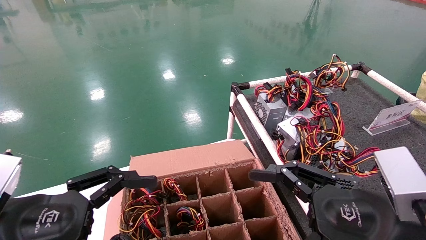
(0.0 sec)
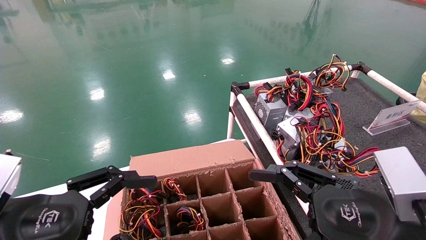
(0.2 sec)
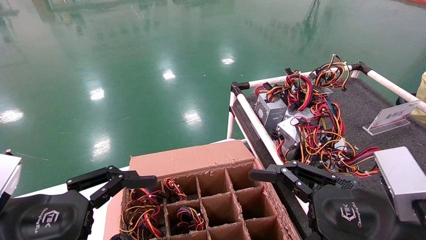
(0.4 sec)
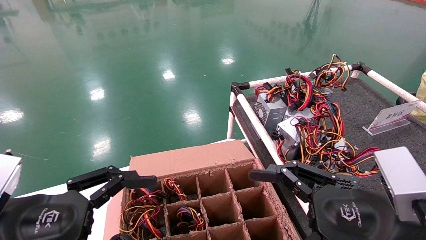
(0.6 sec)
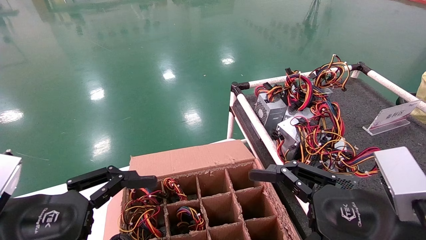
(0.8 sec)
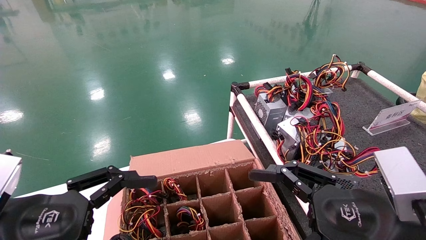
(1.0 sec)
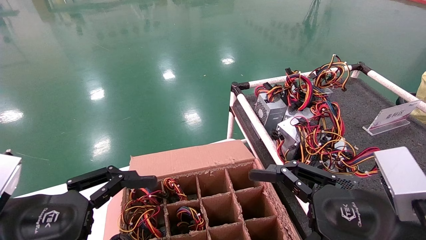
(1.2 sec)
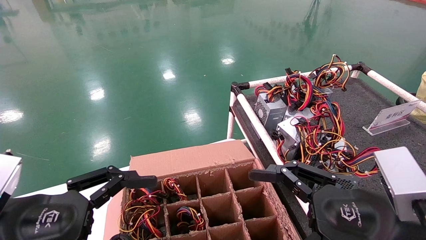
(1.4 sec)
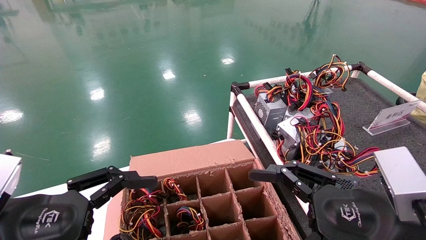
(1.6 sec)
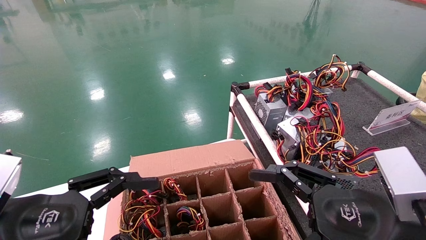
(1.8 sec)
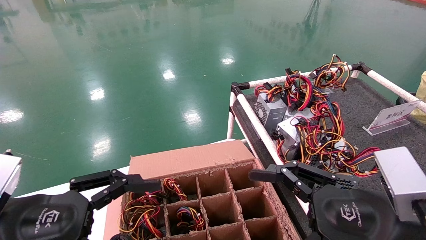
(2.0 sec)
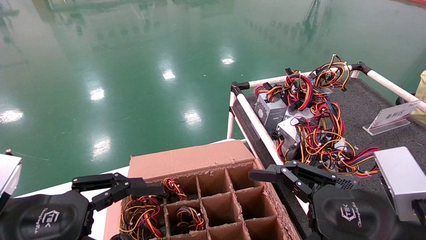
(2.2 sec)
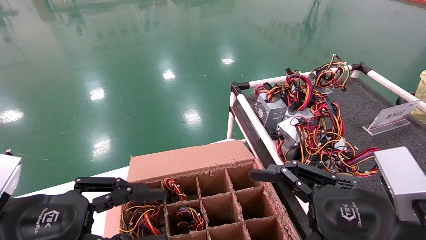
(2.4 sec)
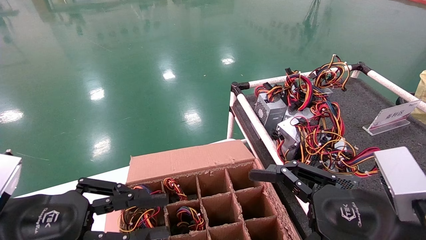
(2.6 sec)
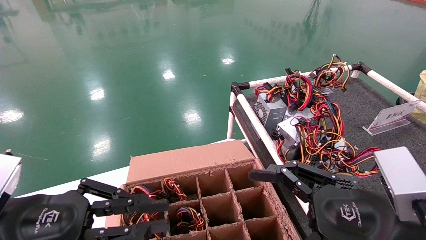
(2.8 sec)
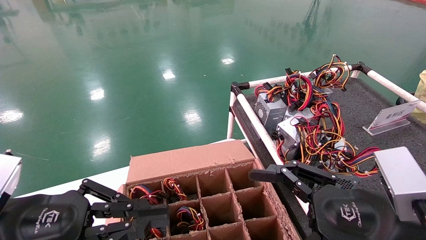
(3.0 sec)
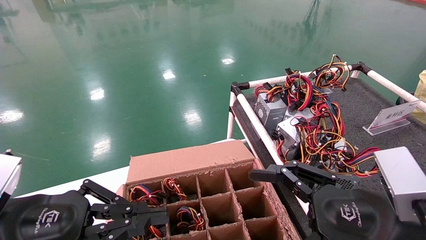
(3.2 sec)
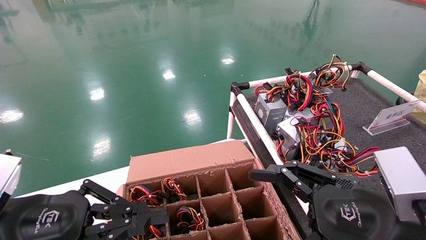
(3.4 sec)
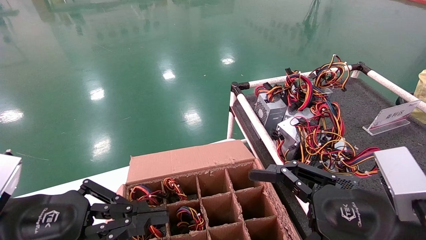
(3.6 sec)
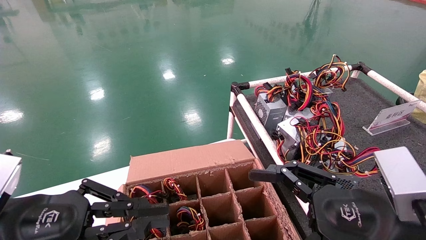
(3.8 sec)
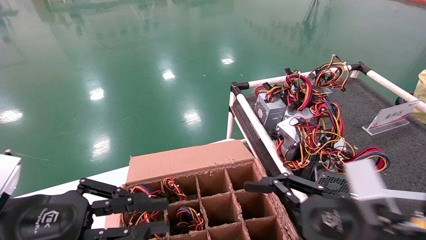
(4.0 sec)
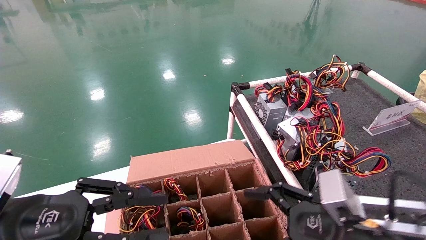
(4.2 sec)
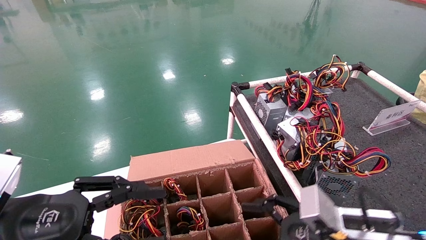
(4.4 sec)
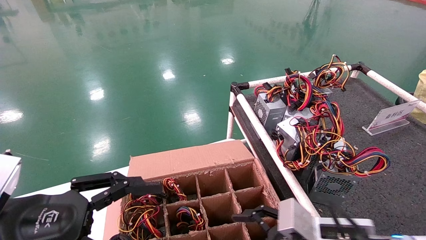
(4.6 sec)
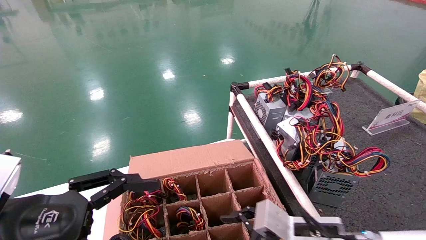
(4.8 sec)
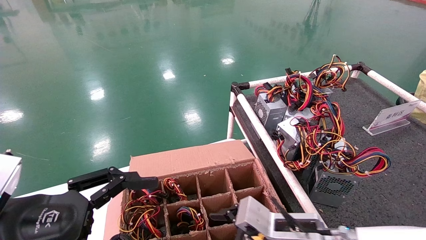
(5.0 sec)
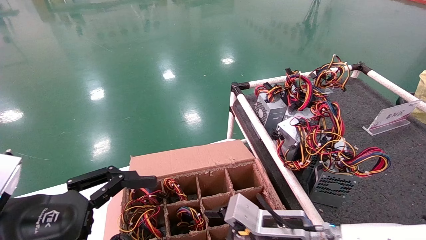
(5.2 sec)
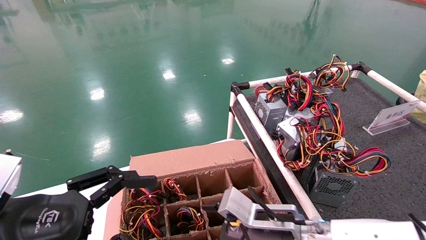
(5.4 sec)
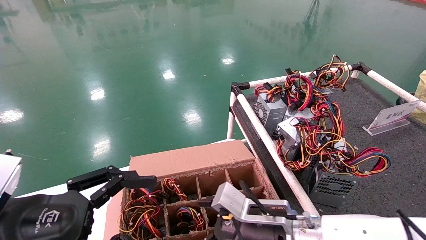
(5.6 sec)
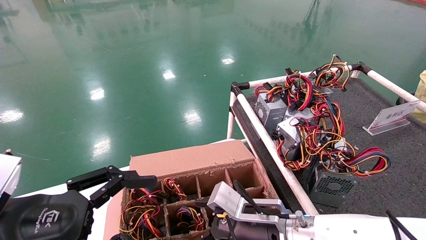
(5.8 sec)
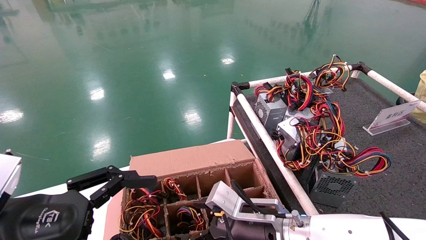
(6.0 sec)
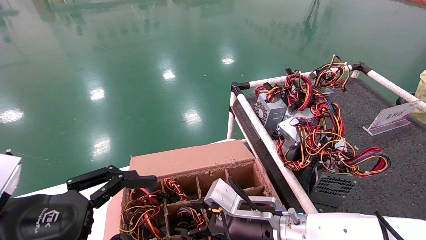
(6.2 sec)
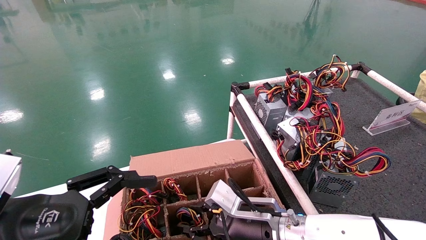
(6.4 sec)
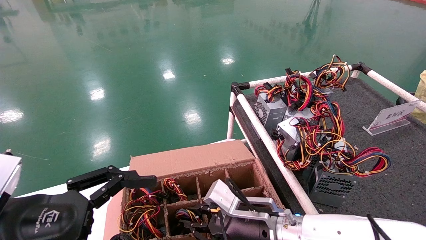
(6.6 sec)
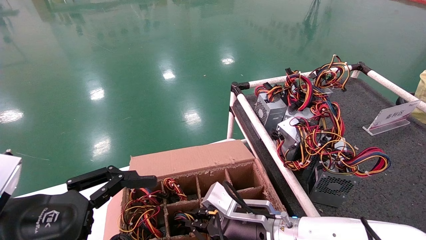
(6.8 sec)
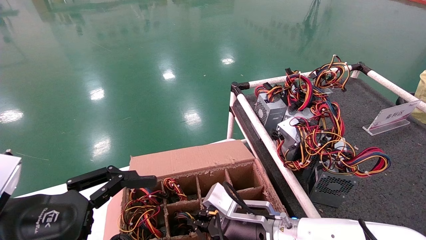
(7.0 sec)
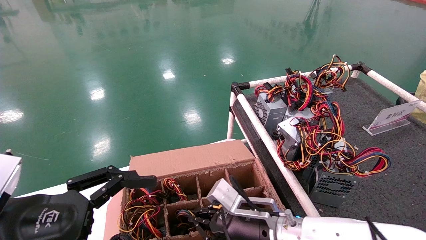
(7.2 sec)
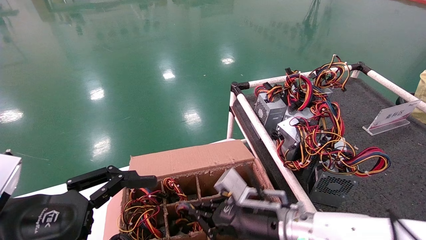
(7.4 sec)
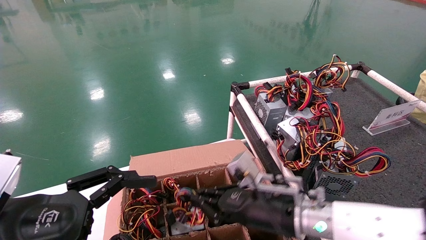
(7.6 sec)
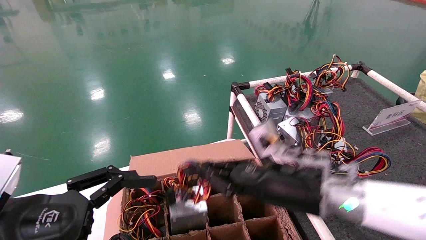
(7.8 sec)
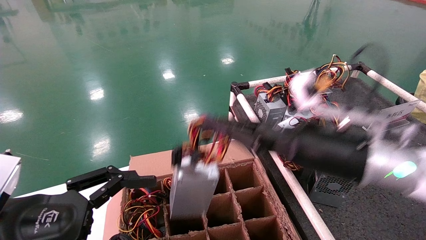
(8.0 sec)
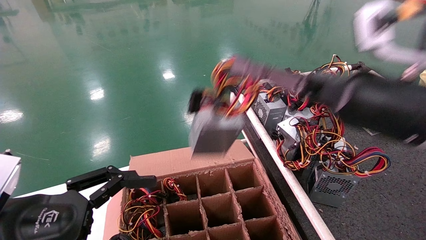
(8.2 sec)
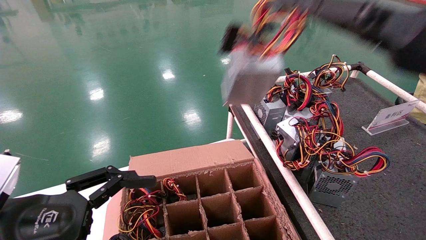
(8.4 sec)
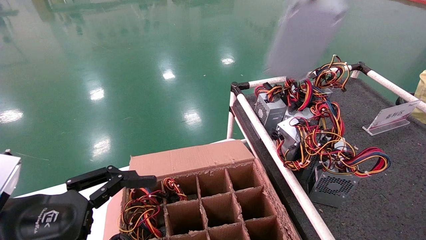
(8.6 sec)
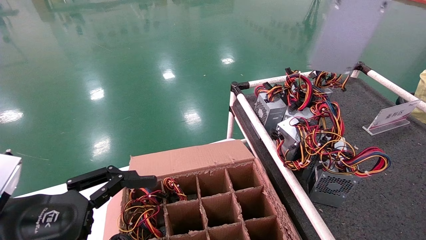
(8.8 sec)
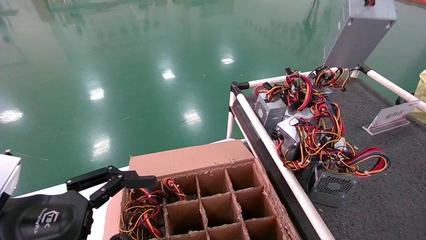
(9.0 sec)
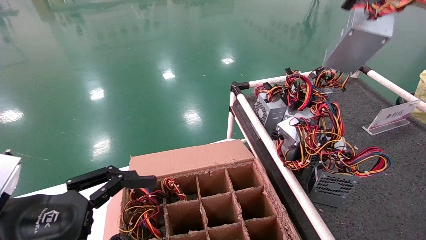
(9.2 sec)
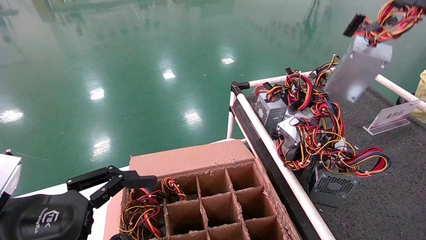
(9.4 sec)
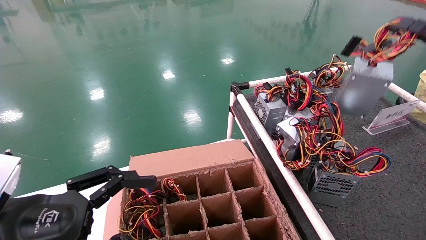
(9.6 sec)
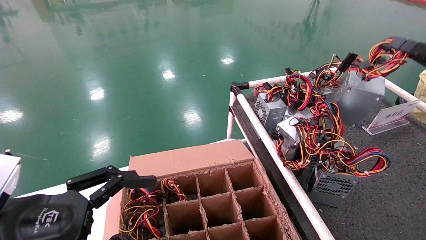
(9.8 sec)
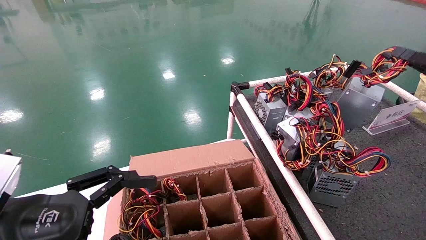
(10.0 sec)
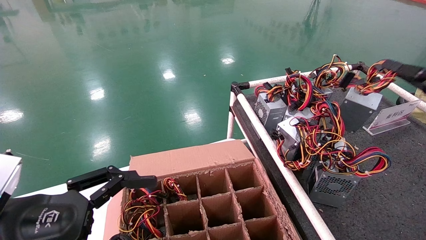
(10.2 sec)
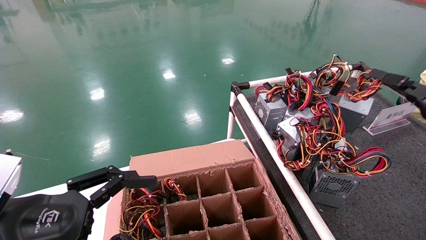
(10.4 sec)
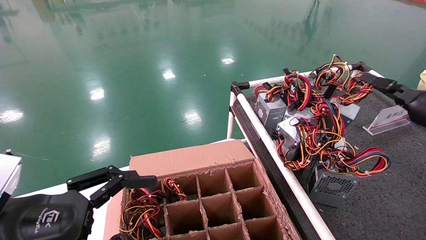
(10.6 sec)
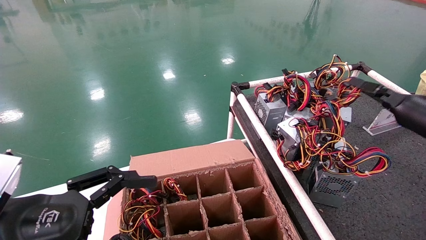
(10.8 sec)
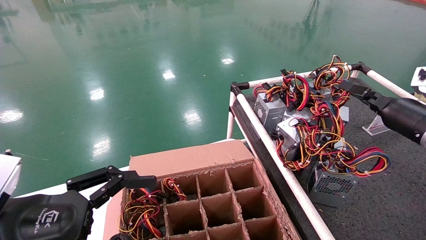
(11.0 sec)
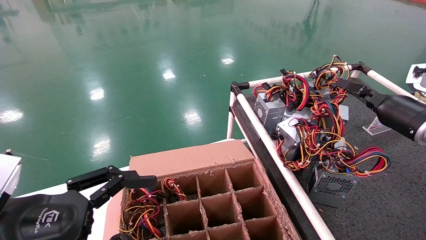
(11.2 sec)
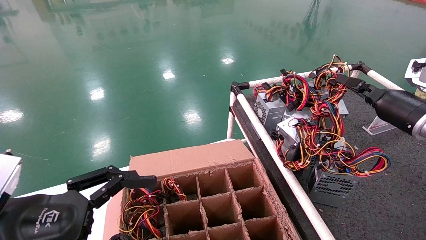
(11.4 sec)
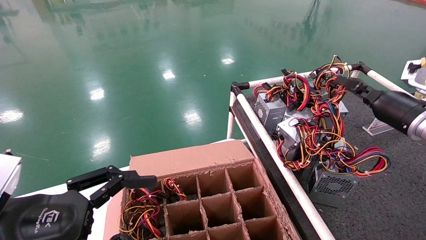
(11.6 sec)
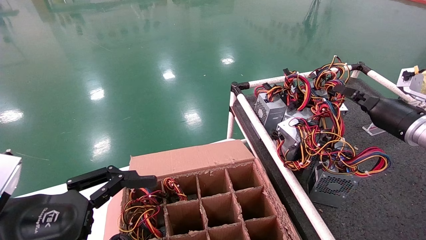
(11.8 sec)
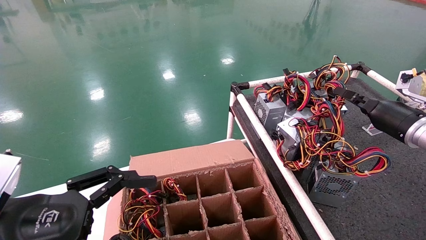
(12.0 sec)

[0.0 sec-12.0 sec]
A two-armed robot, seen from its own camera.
Step, 2.4 sec to 6.8 sec: Grab and lift the power supply from the large box.
0.0 sec to 1.6 sec: The two grippers keep their place.
1.6 sec to 3.0 sec: The left gripper closes.
3.0 sec to 4.4 sec: The right gripper heads downward and forward, covering about 10 cm.
4.4 sec to 6.0 sec: The right gripper moves to the left and forward, about 15 cm, while the left gripper opens up.
6.0 sec to 7.6 sec: The right gripper shifts some 5 cm upward, and closes up.
7.6 sec to 9.0 sec: The right gripper is displaced to the right and upward by approximately 40 cm.
9.0 sec to 10.4 sec: The right gripper goes approximately 20 cm downward and forward.
10.4 sec to 12.0 sec: The right gripper goes roughly 10 cm forward and to the left.

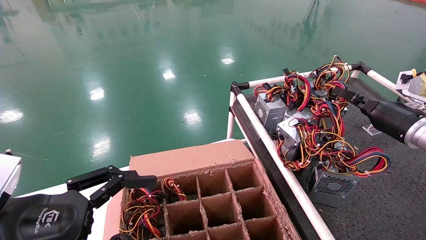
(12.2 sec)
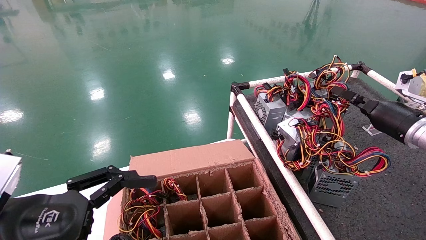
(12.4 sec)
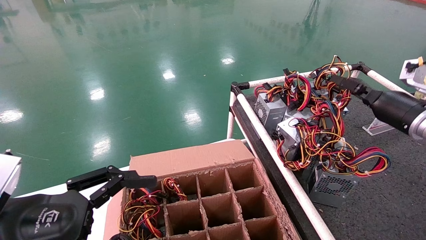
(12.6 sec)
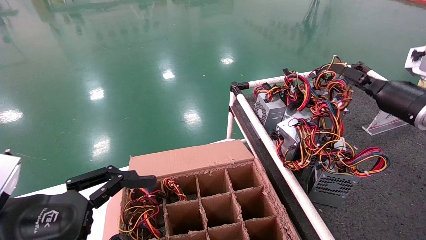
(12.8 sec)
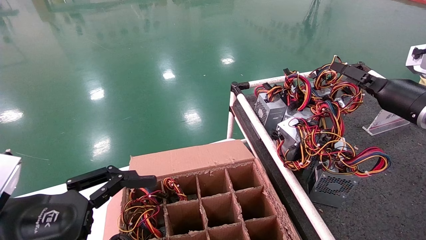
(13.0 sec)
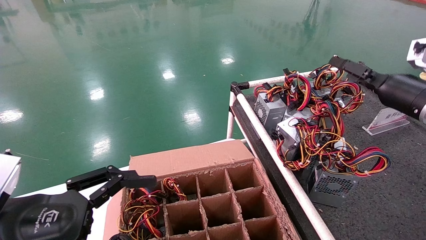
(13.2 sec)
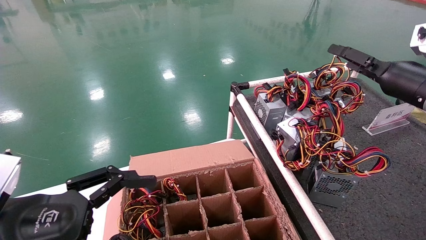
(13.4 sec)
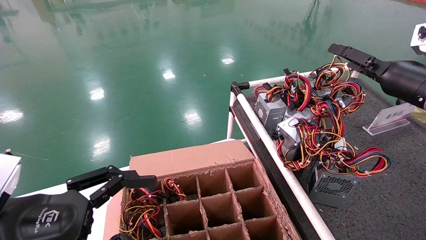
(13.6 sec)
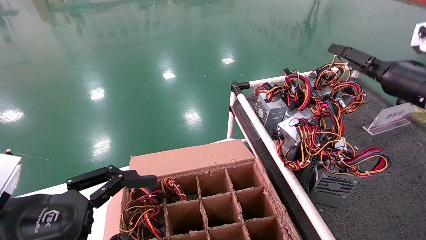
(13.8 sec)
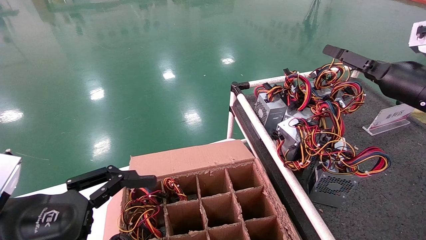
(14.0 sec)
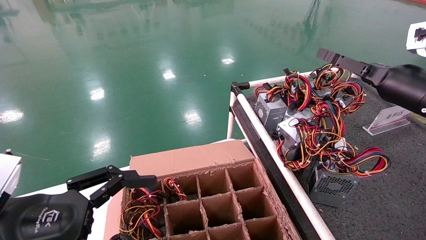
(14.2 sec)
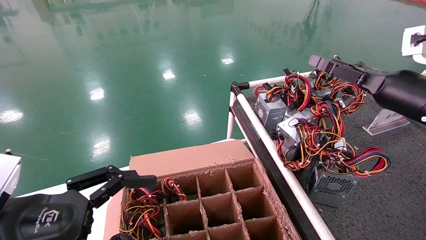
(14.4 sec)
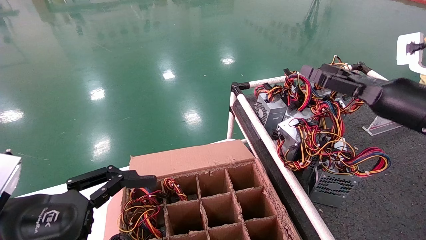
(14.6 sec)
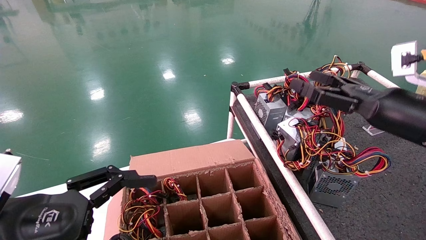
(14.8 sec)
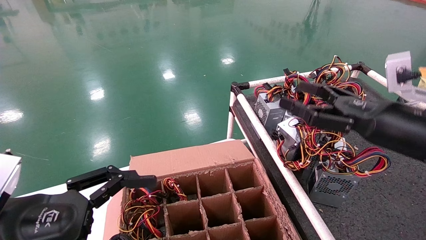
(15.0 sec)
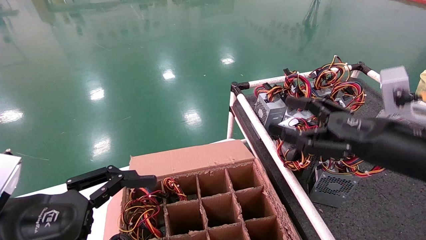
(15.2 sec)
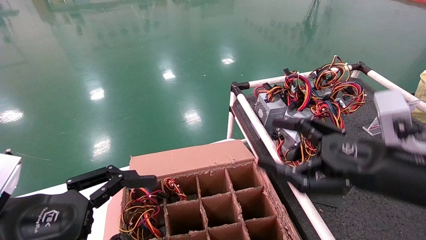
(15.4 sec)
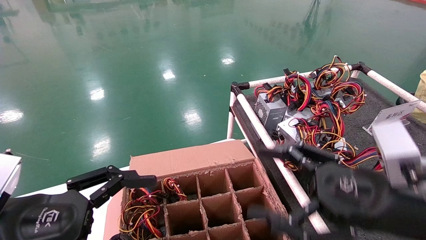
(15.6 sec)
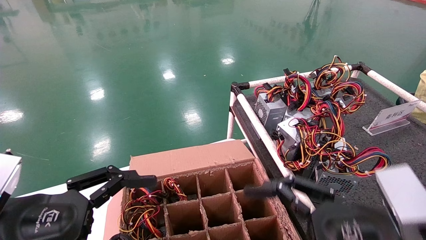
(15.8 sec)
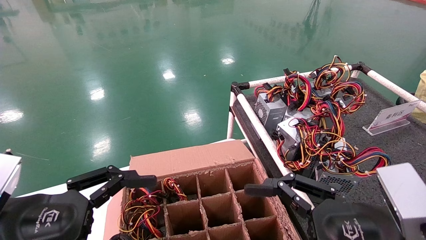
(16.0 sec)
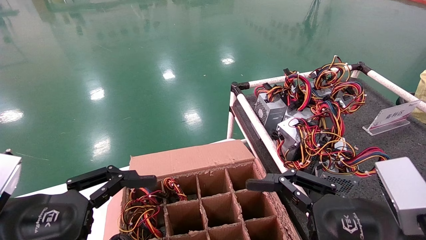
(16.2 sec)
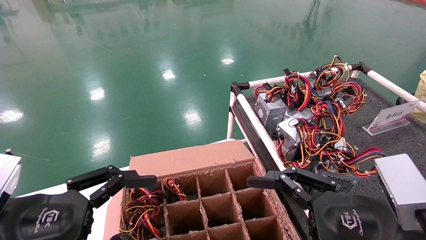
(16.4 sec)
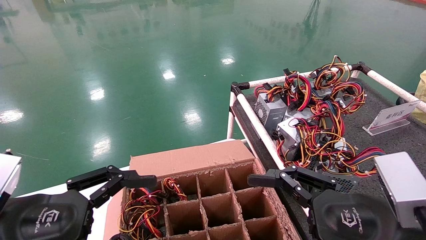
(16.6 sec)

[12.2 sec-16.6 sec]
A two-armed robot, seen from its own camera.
12.2 sec to 13.6 sec: The right gripper moves upward, approximately 10 cm, and opens its fingers.
13.6 sec to 15.2 sec: The right gripper heads backward, to the left and downward, covering approximately 20 cm.
15.2 sec to 16.6 sec: The right gripper heads backward and downward, covering some 10 cm.
